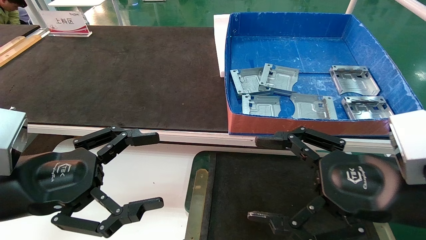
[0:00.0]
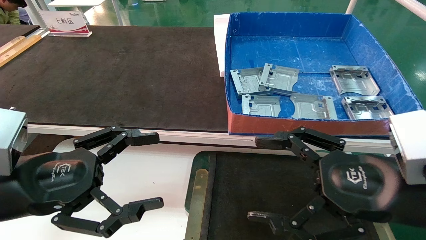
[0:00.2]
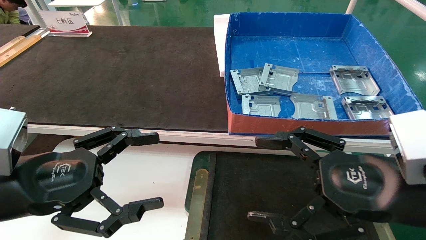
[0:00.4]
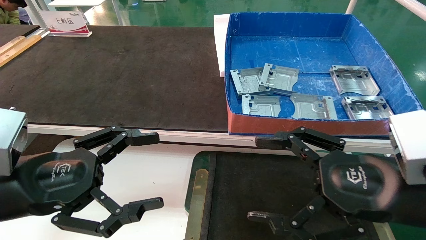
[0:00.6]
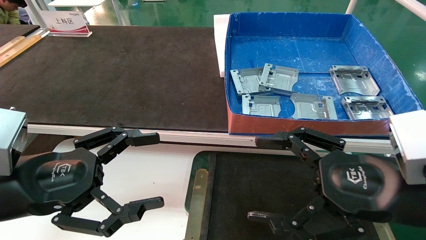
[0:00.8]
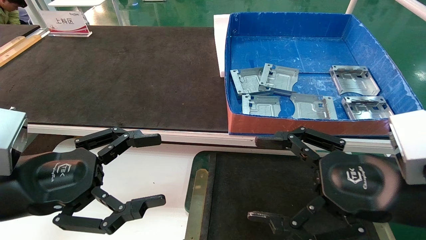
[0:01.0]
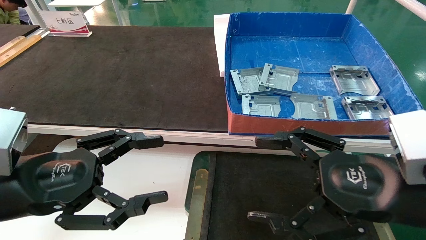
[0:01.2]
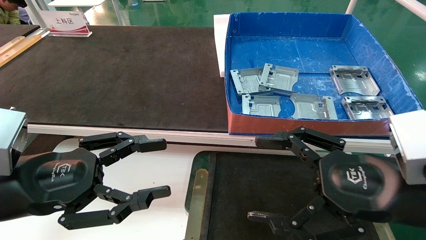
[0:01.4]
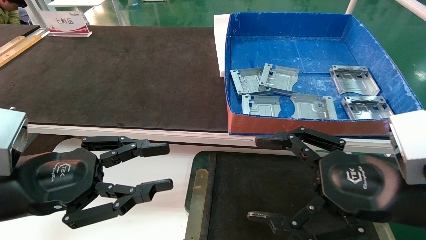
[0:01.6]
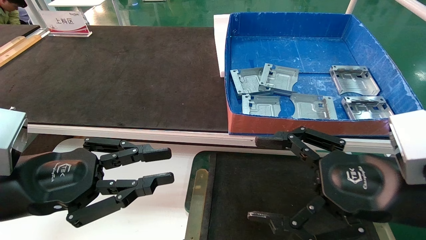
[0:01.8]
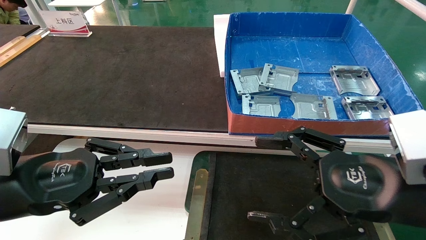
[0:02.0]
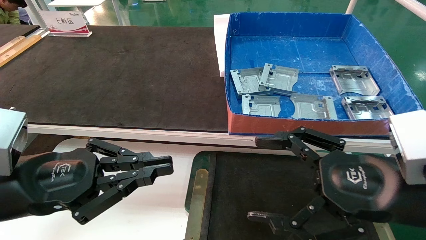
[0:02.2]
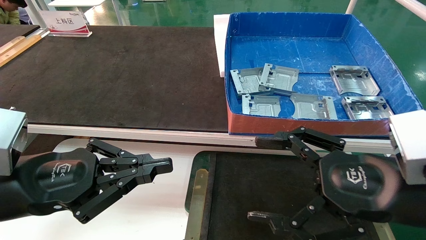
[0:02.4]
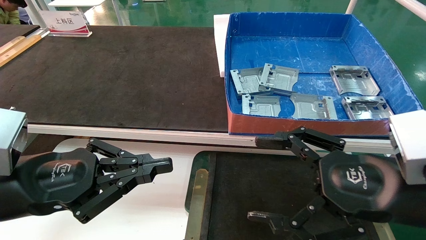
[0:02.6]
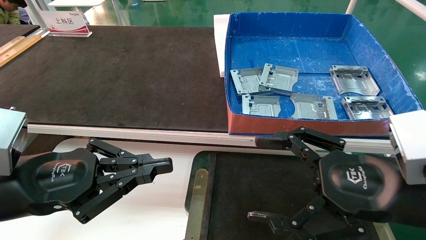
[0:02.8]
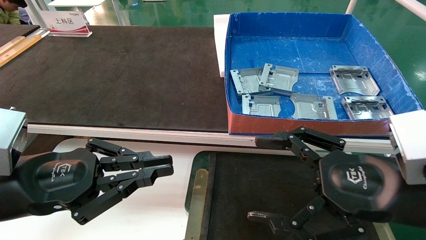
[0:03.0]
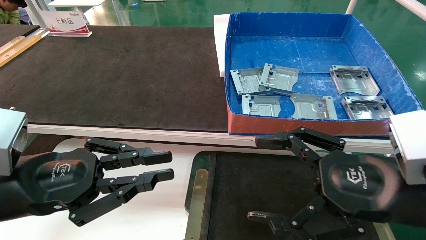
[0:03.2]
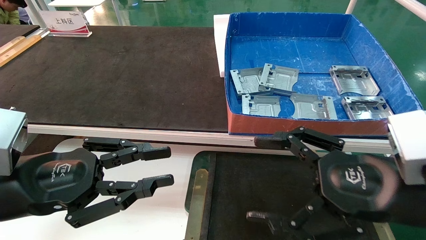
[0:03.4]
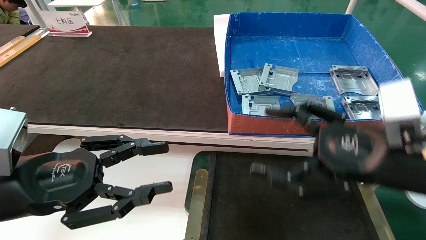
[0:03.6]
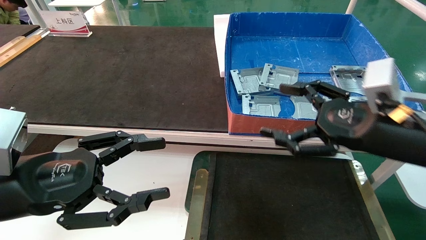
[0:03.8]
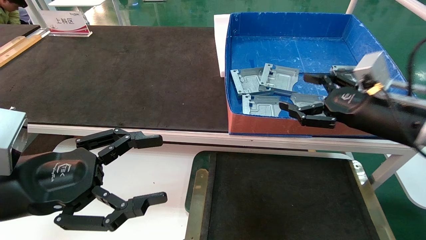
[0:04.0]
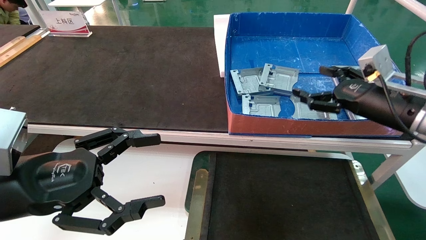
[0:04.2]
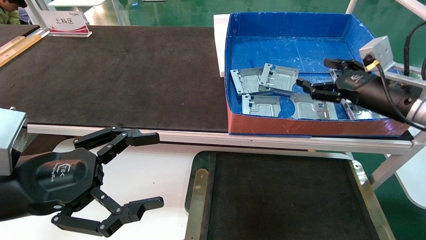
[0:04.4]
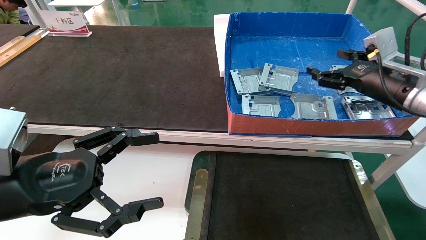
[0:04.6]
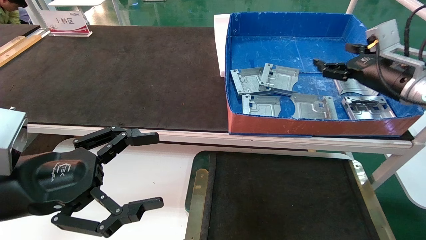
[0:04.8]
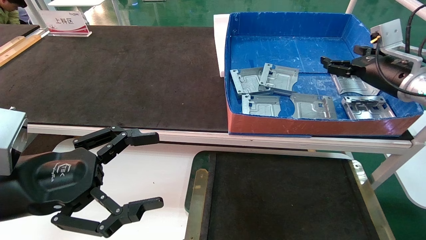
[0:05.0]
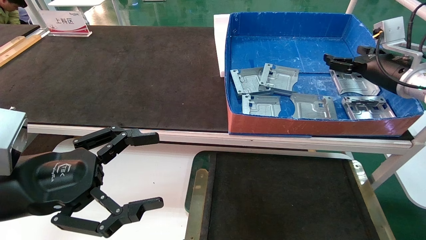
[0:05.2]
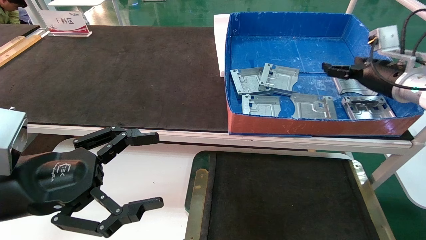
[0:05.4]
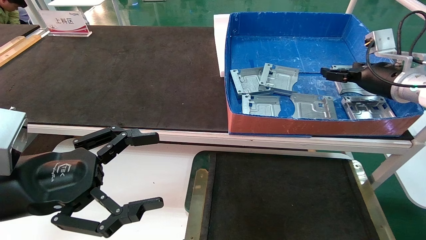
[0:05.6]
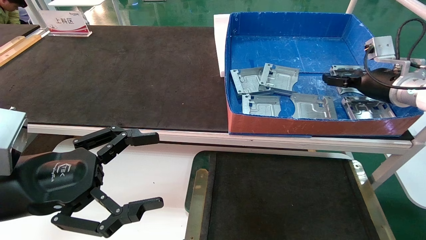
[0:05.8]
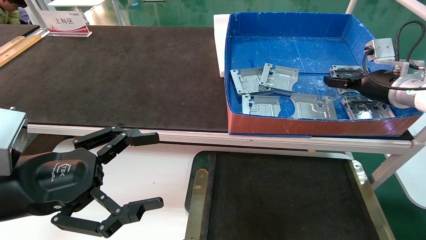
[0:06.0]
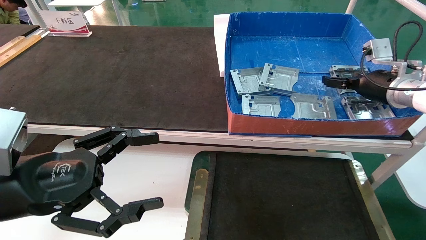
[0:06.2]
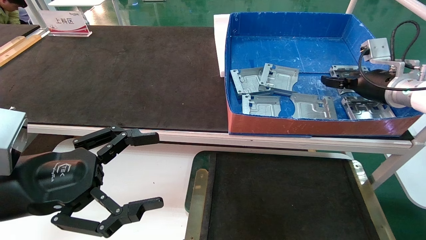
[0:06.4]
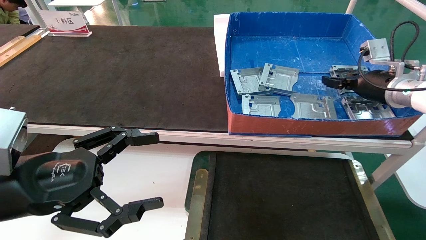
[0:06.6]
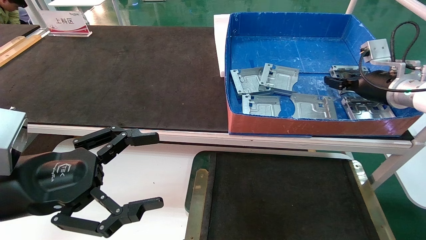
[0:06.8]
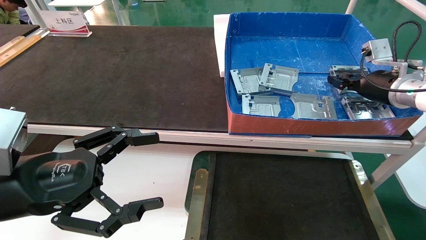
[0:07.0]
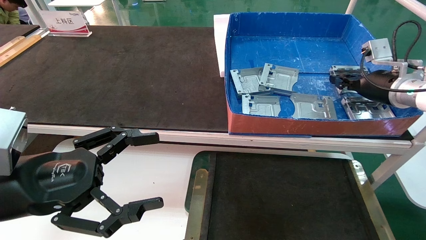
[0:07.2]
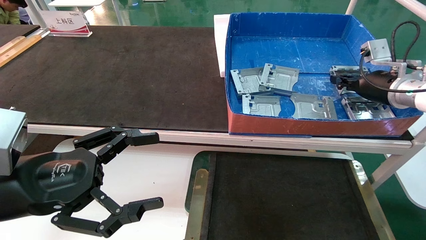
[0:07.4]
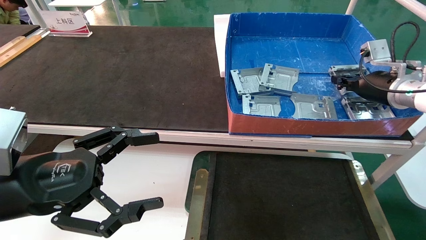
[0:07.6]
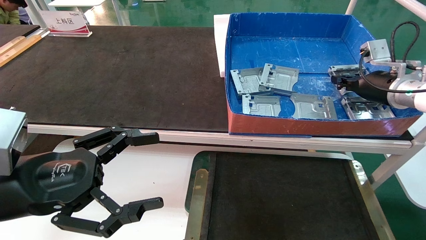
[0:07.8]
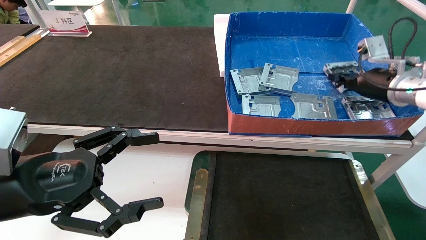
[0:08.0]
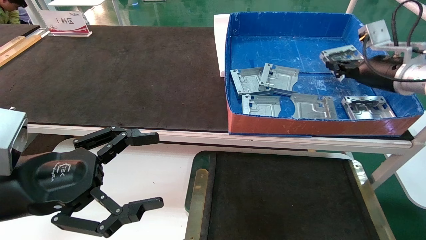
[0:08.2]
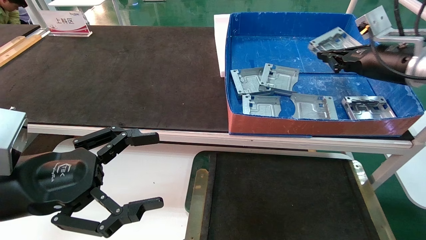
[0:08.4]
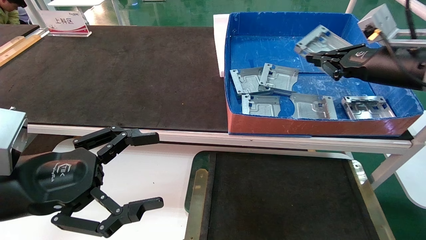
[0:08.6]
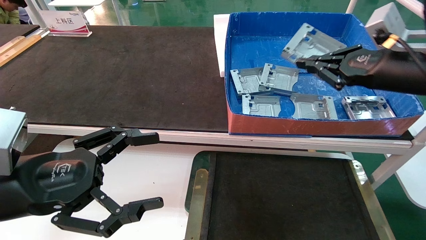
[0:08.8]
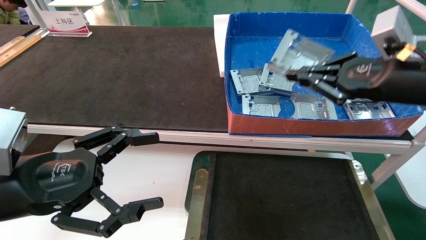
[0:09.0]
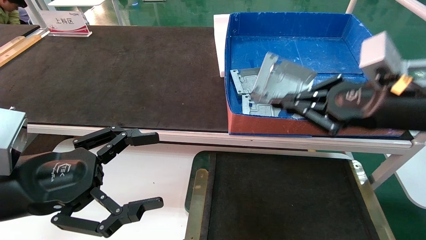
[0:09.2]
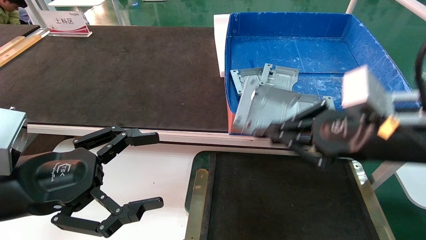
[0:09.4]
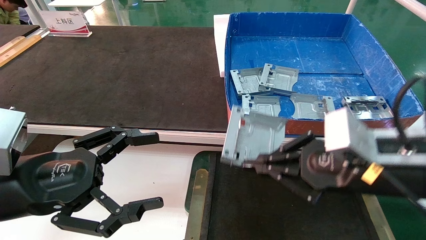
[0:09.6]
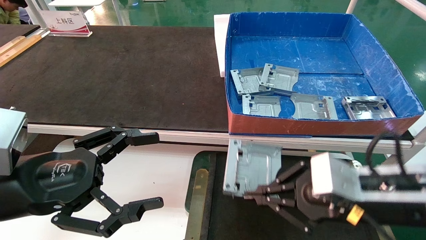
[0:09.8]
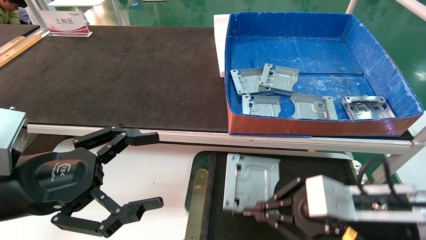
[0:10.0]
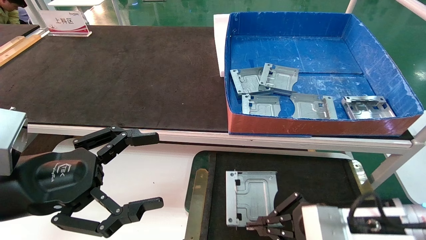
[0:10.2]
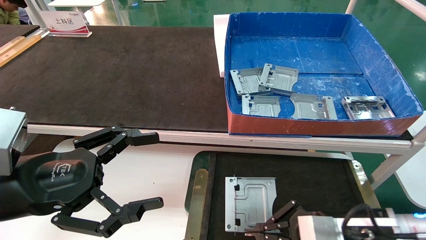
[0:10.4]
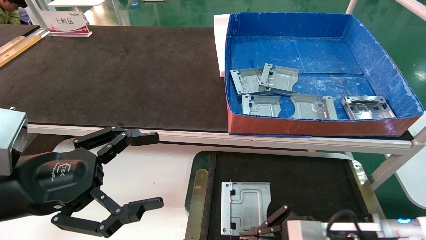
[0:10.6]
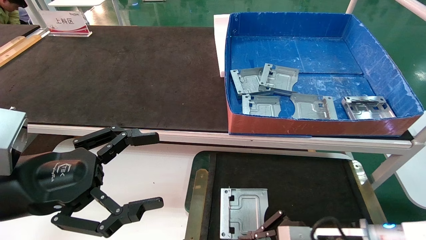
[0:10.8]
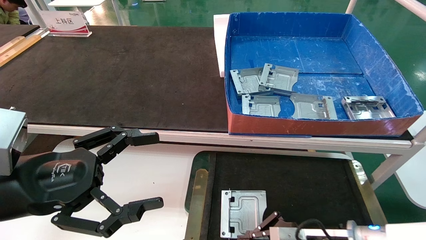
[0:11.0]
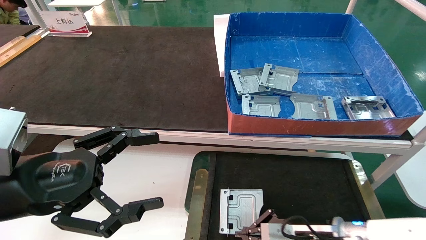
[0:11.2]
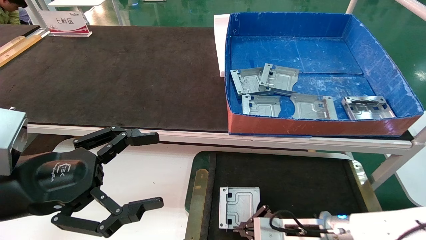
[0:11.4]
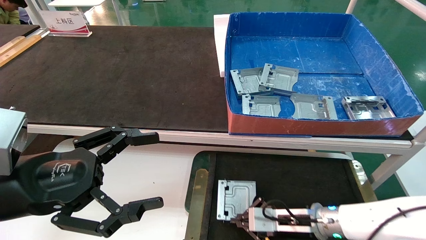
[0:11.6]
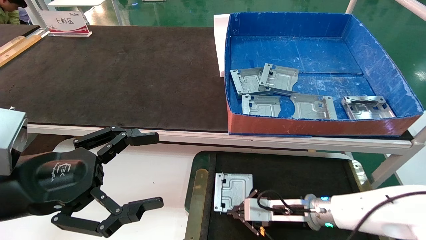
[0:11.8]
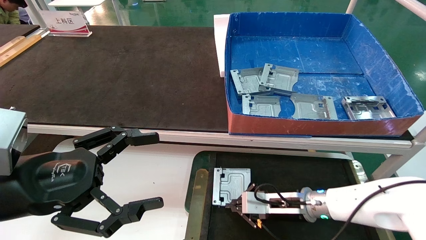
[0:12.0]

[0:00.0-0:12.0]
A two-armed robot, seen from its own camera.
Task of the whole recording: pick up parts and place them into a black container.
Step, 0:04.0 to 0:07.6: Pick up the hard drive bracket from the feeding area.
0:00.0 to 0:01.6: The left gripper closes up.
0:01.6 to 0:03.0: The left gripper closes.
0:03.0 to 0:04.4: The left gripper opens its fingers. The right gripper is displaced forward and to the right by some 20 cm.
0:04.4 to 0:06.0: The right gripper heads forward, covering approximately 10 cm.
0:06.0 to 0:07.6: The right gripper closes up.
0:07.6 to 0:09.0: The right gripper travels backward and to the left by roughly 15 cm.
0:09.0 to 0:10.4: The right gripper travels downward by some 20 cm.
0:10.4 to 0:12.0: The right gripper is displaced forward and downward by roughly 15 cm.

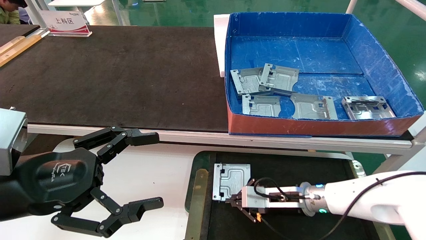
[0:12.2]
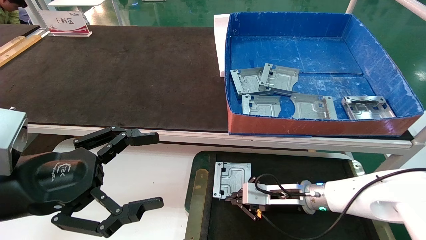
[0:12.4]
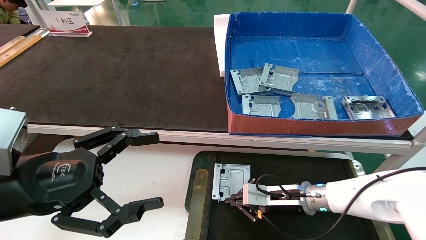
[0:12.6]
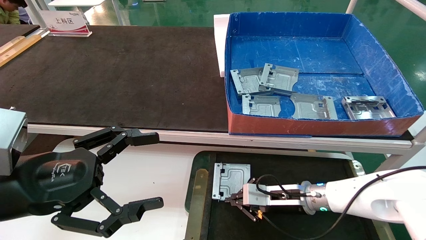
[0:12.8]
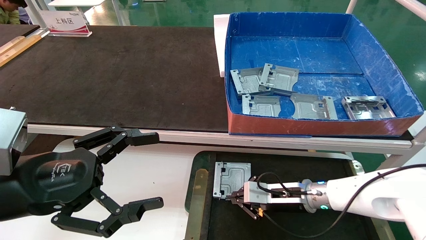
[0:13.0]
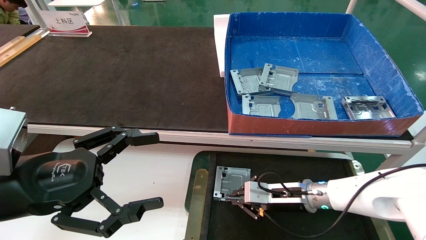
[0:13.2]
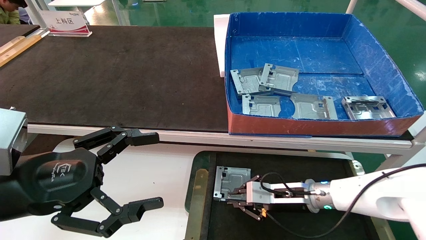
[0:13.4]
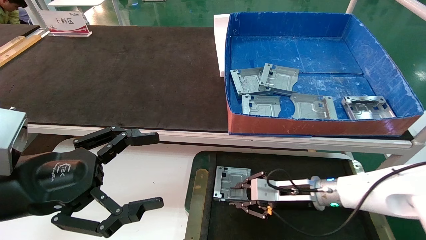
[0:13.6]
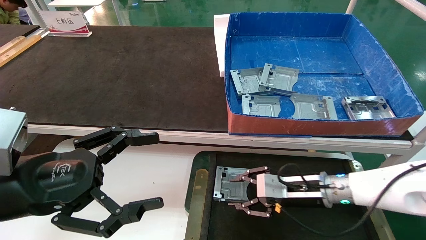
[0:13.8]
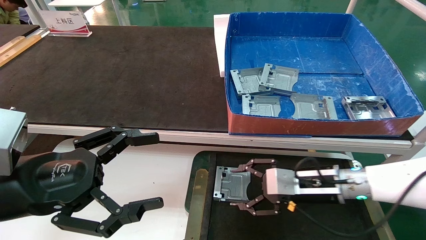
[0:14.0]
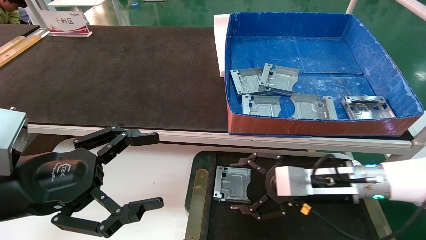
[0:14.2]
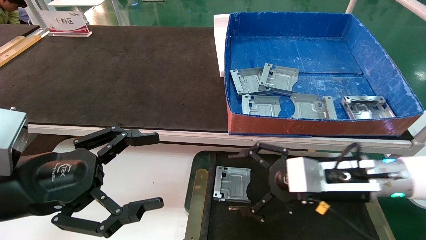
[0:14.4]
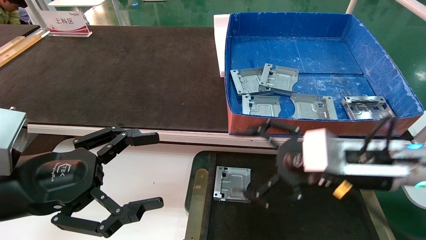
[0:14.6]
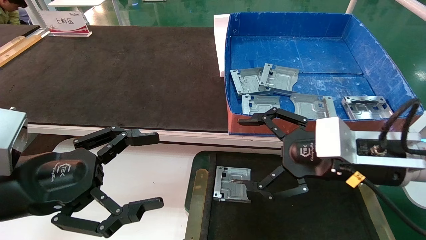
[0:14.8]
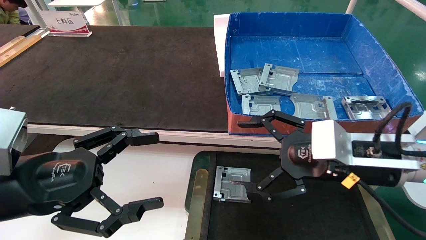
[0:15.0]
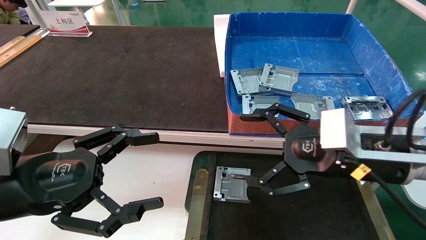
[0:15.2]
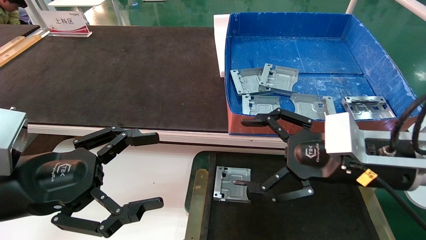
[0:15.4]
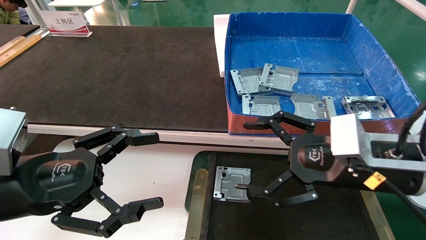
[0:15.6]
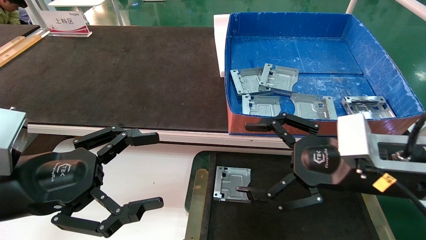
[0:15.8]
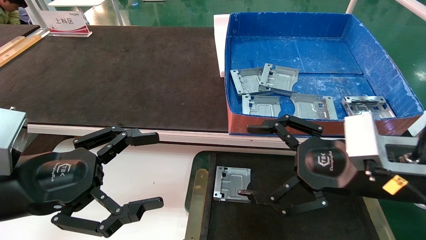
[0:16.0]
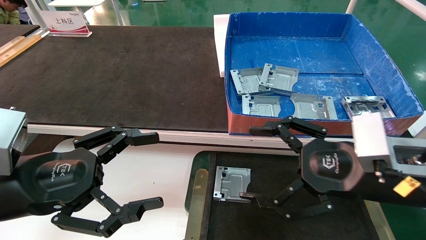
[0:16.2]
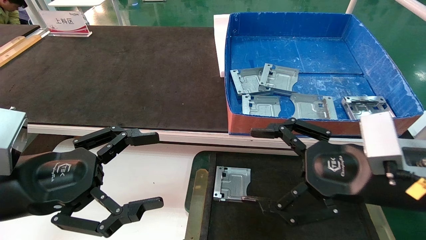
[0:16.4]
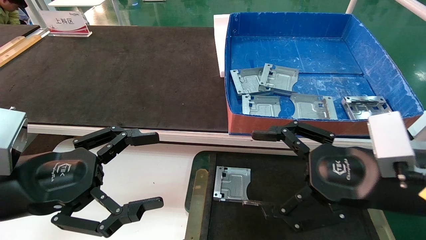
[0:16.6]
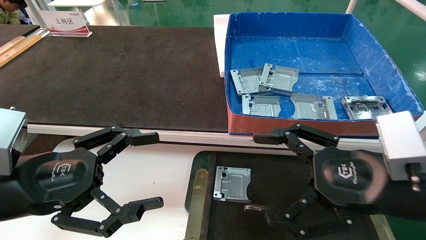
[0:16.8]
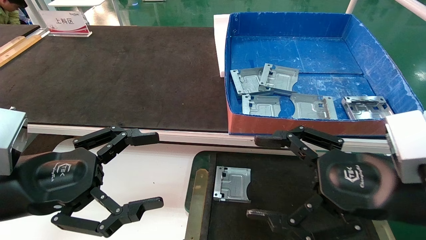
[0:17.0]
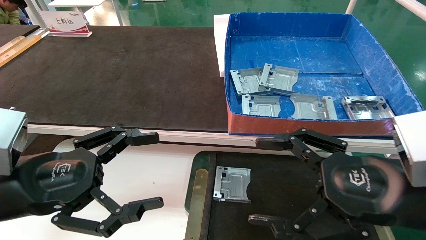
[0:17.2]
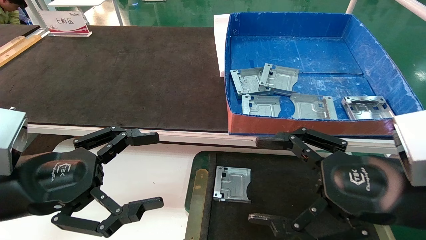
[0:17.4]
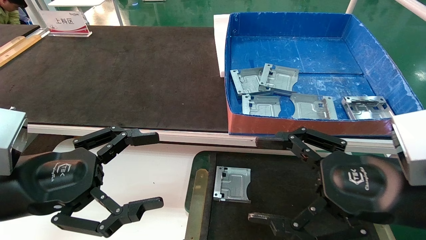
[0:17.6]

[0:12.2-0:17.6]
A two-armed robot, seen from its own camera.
Task of the whole recording: pick up parts and place them into a black container.
0:12.2 to 0:13.6: The grippers make only small movements.
0:13.6 to 0:15.0: The right gripper travels upward and backward by about 20 cm, and opens its fingers.
0:15.0 to 0:16.2: The grippers move only a little.
0:16.2 to 0:17.6: The grippers stay close to where they were, moving slightly.
